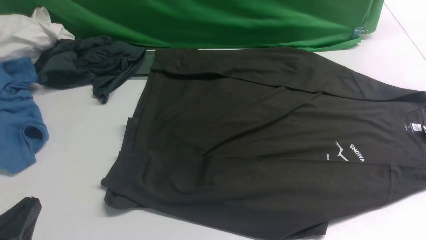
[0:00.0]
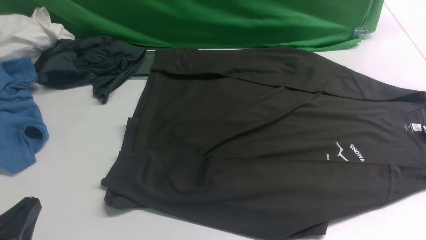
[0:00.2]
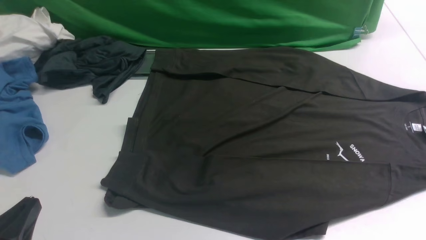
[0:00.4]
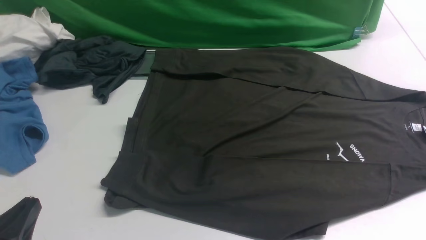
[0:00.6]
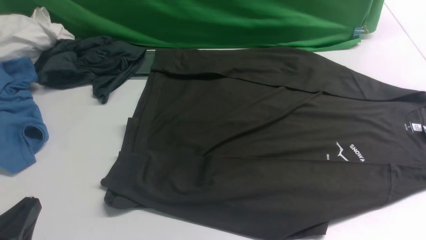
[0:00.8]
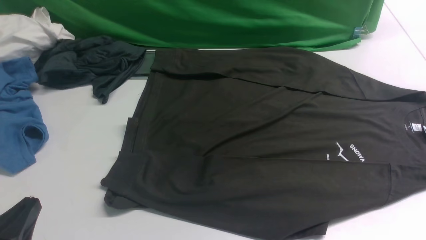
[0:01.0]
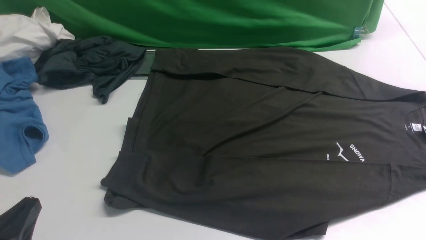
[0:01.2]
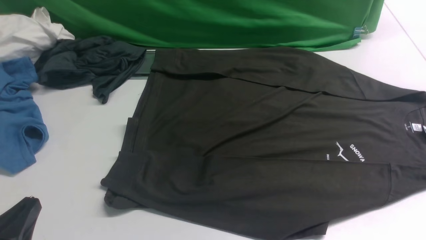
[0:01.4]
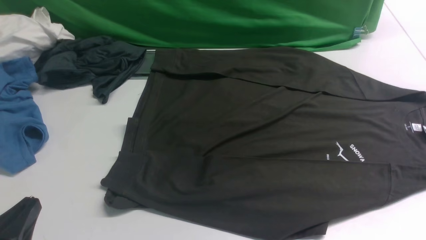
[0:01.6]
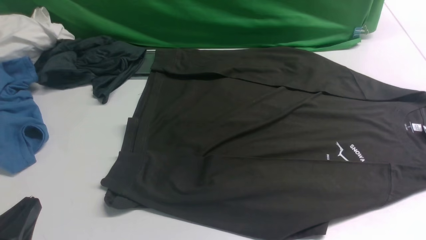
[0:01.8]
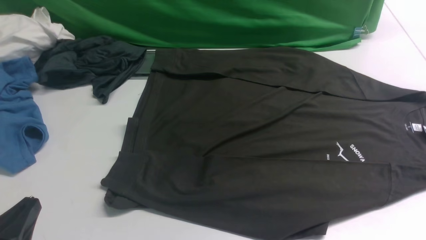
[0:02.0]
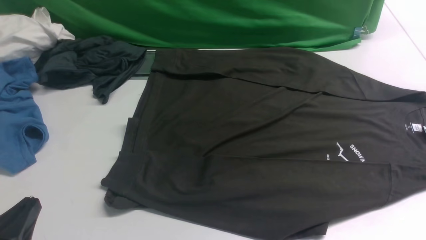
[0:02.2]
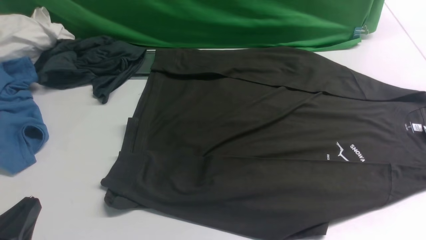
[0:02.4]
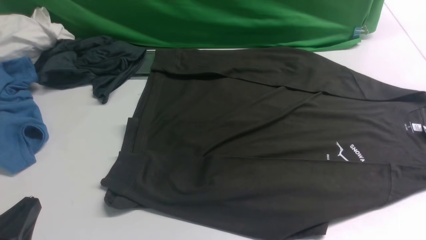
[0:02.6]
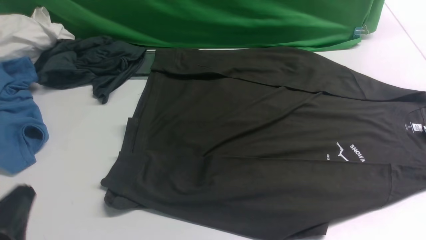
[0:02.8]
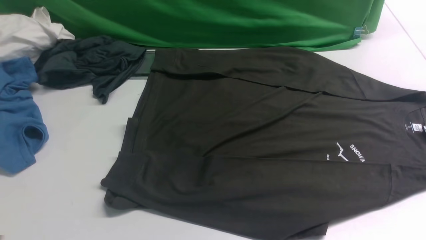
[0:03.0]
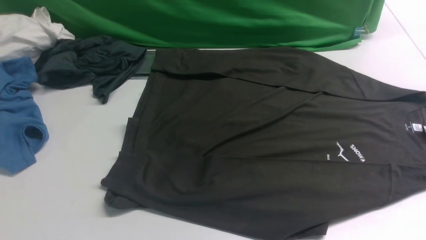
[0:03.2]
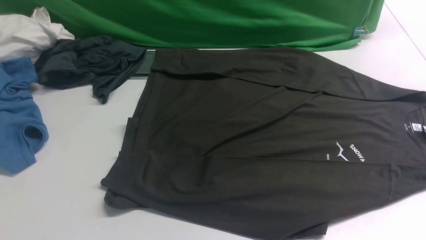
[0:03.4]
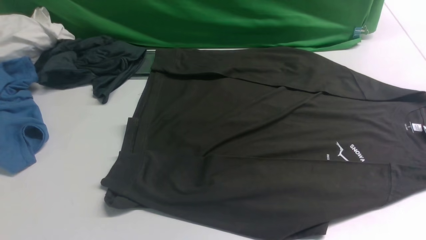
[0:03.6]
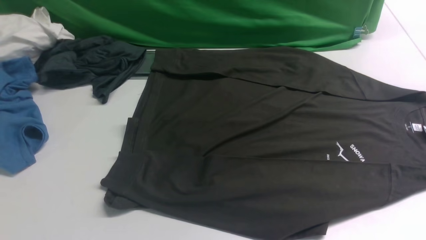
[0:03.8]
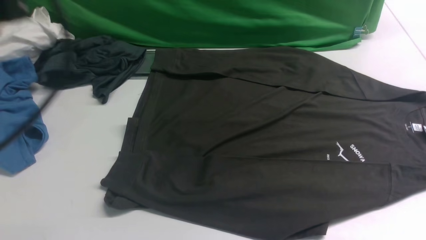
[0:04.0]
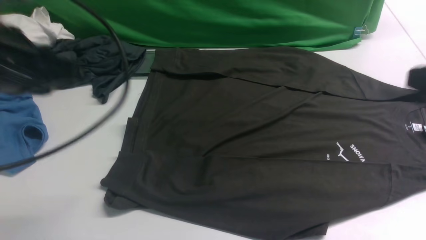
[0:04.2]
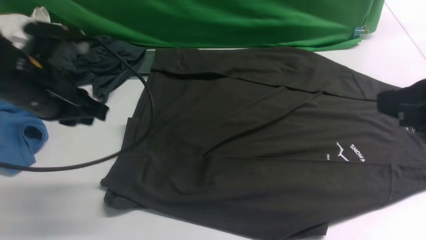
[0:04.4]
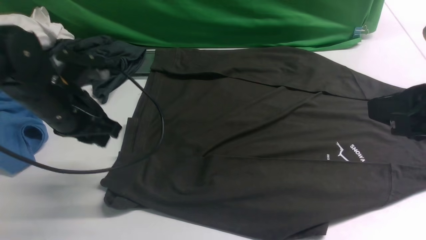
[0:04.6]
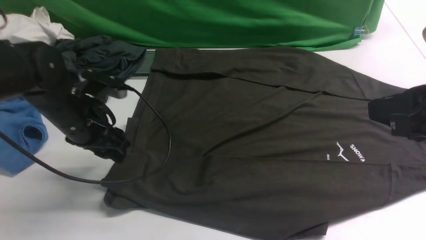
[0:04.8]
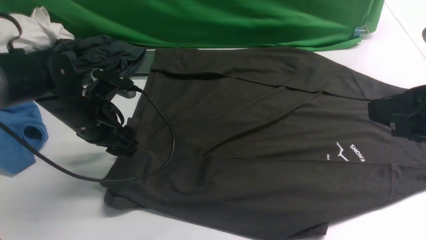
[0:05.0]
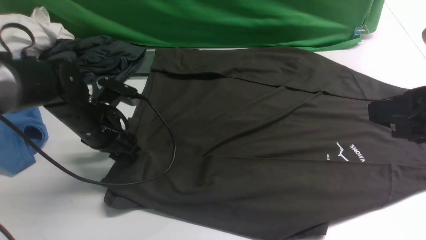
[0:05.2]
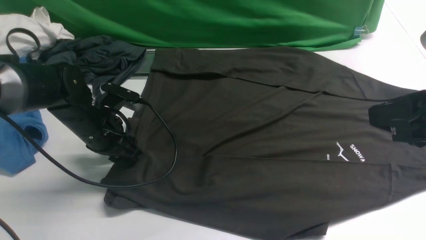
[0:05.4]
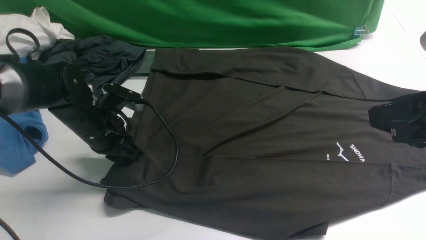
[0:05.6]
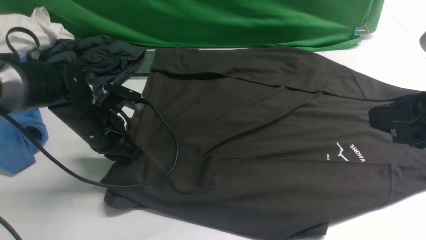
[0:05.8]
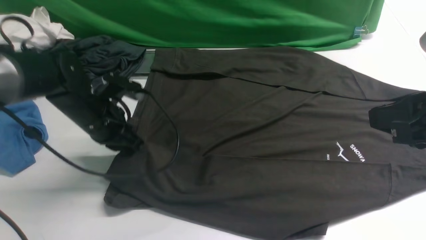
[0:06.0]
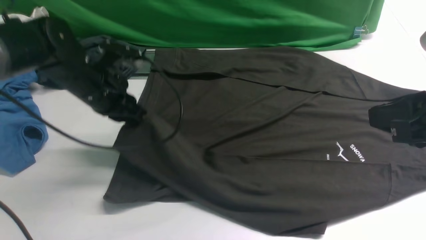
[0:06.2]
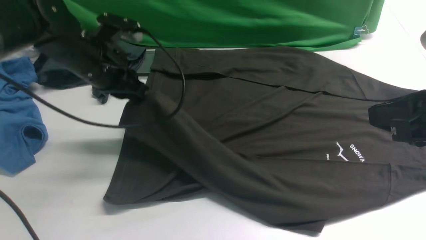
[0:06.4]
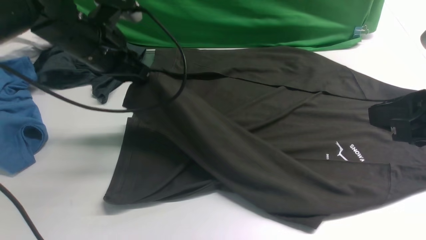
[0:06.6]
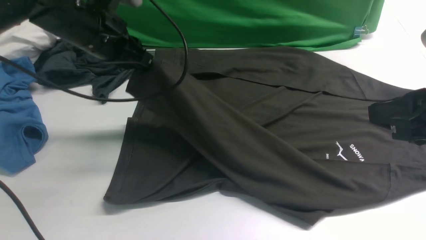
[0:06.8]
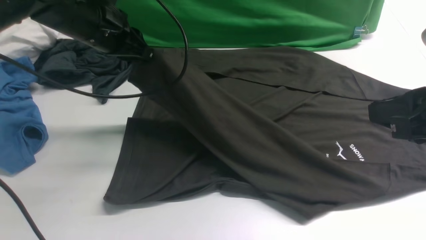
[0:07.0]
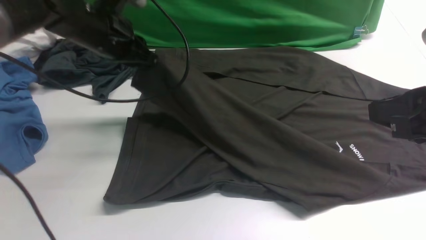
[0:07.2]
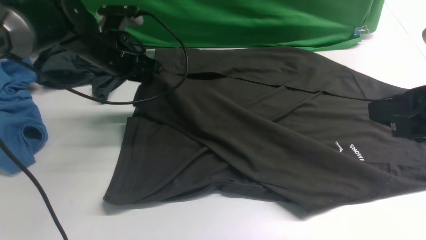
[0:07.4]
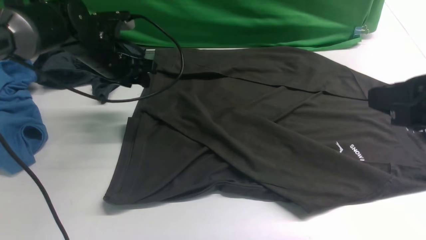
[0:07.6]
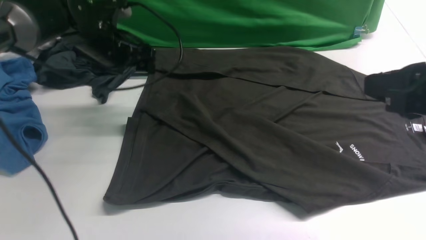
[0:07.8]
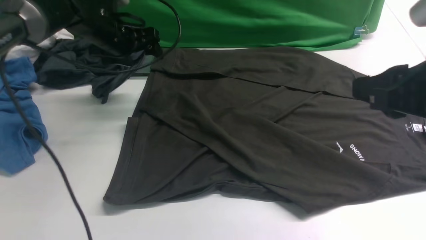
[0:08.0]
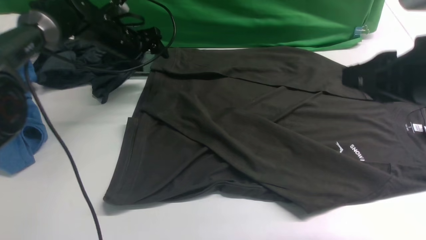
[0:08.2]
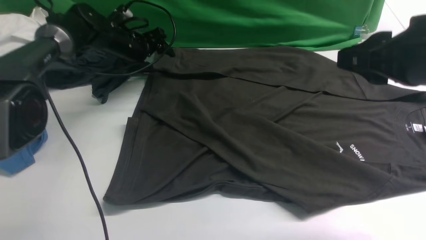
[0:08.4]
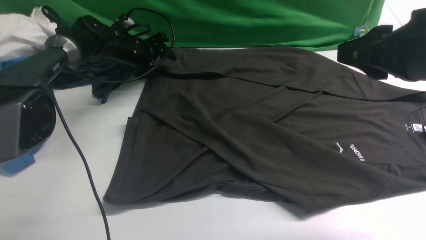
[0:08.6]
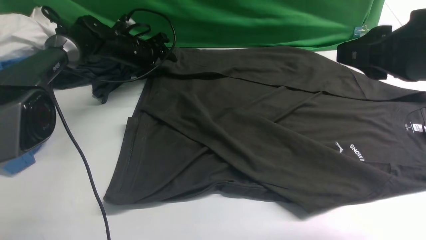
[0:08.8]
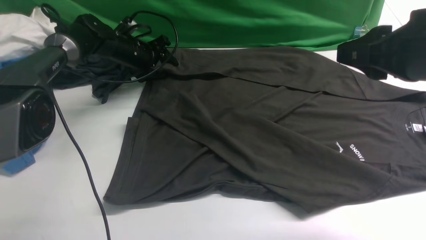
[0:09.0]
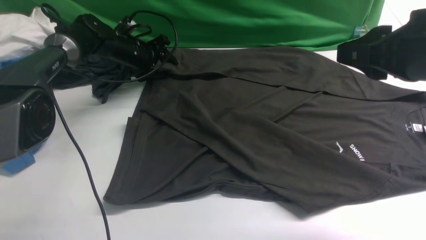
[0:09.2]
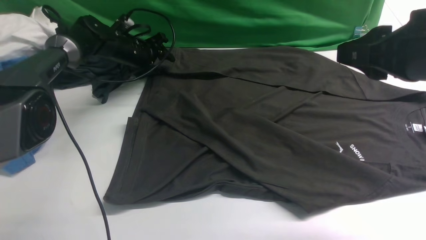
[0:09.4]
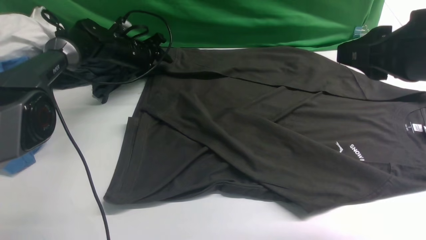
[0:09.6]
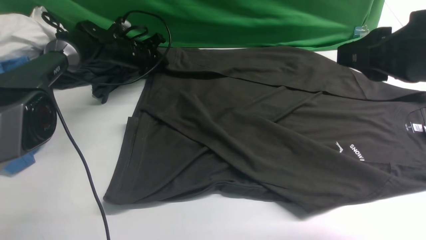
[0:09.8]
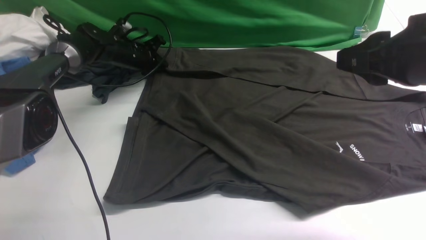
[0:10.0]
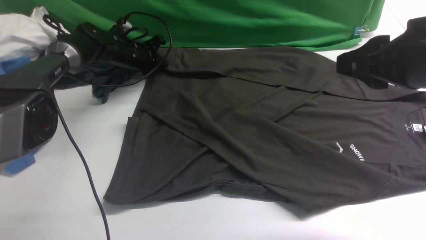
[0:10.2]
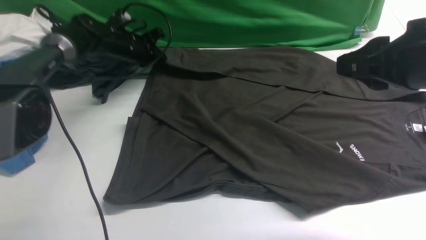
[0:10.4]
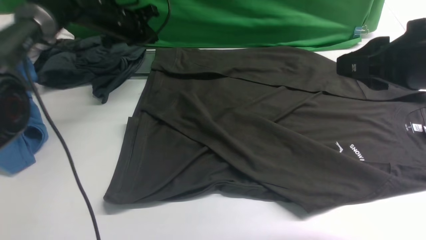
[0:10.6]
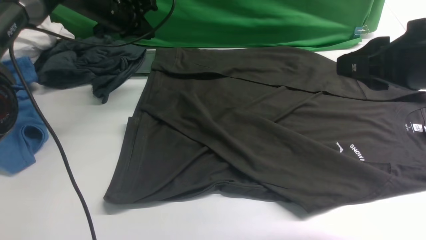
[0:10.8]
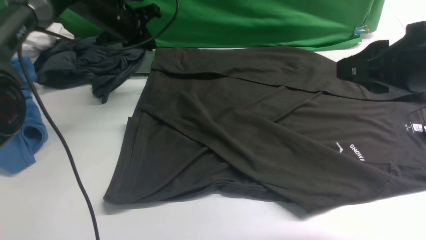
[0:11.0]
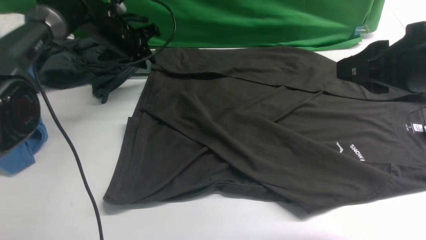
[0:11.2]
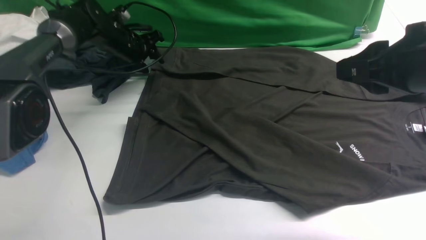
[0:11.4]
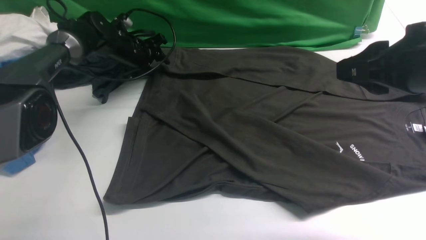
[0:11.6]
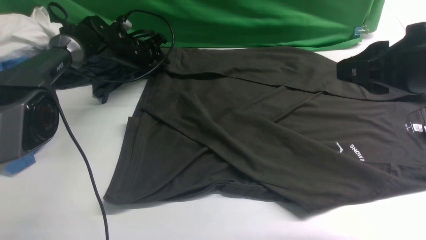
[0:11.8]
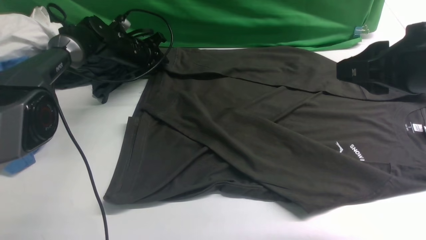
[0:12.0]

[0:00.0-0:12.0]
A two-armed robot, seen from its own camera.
Step, 0:00.0 to 0:06.0: use the left arm to clamp the cuff closest to it.
Step, 0:06.2 to 0:07.8: use the left arm to drag and place the cuff at the centered position on the left edge of the fabric.
0:00.0 to 0:01.6: Neither gripper changes place.
0:01.6 to 0:03.0: The left gripper heads upward, covering some 5 cm.
0:03.0 to 0:04.4: The right gripper goes approximately 15 cm forward, upward and to the left. The left gripper travels forward by roughly 25 cm.
0:04.4 to 0:06.0: The left gripper is displaced downward and forward by roughly 10 cm, and opens and closes again.
0:06.0 to 0:07.6: The left gripper shifts about 10 cm forward, and opens its fingers.
0:07.6 to 0:09.0: The right gripper ends up approximately 5 cm from where it was. Meanwhile the left gripper is displaced forward and downward by roughly 15 cm.
0:09.0 to 0:10.4: The left gripper closes.
0:10.4 to 0:12.0: The left gripper opens its fingers.

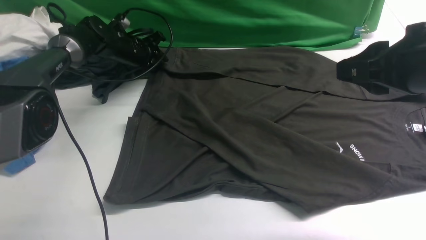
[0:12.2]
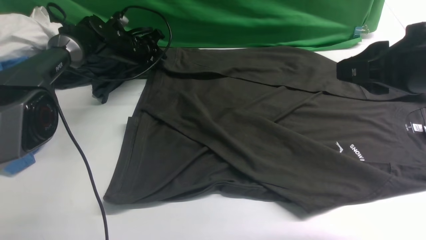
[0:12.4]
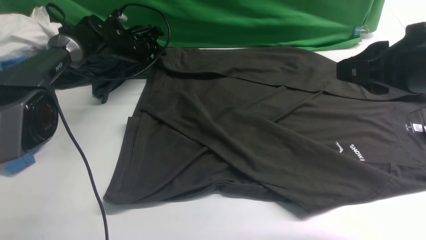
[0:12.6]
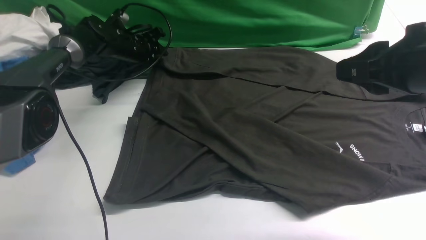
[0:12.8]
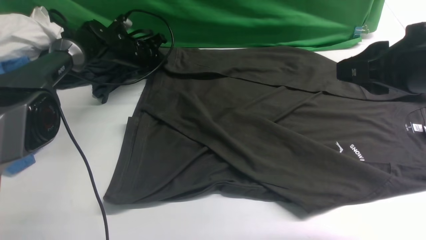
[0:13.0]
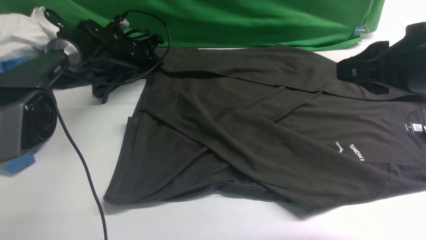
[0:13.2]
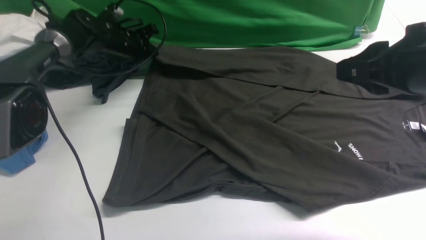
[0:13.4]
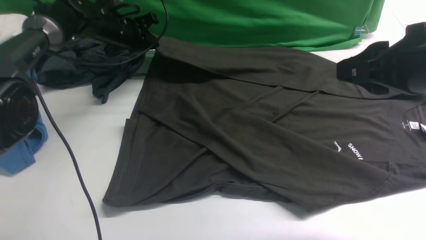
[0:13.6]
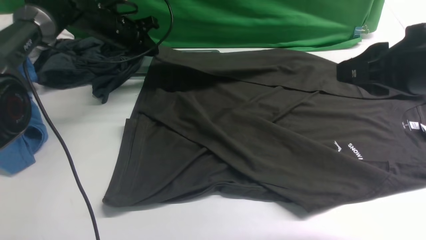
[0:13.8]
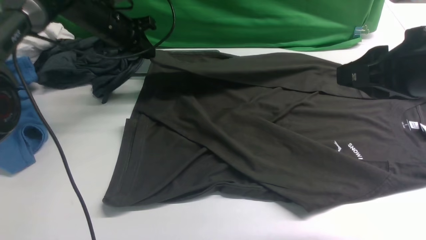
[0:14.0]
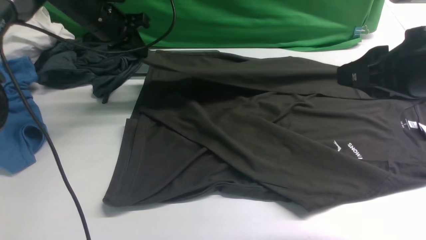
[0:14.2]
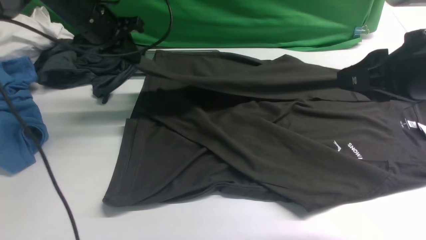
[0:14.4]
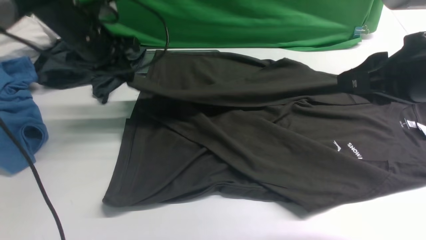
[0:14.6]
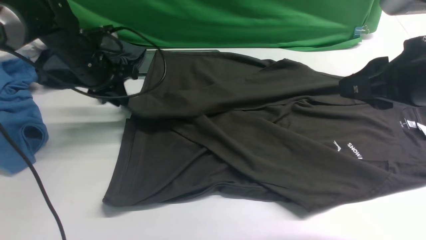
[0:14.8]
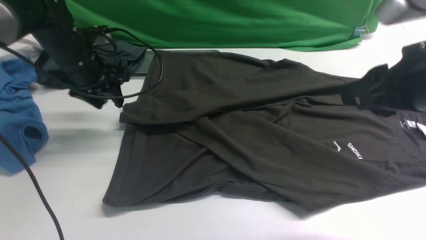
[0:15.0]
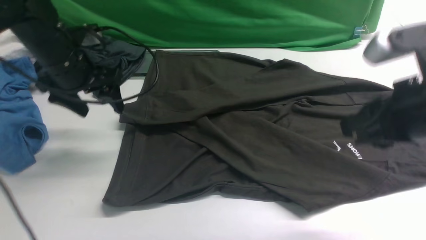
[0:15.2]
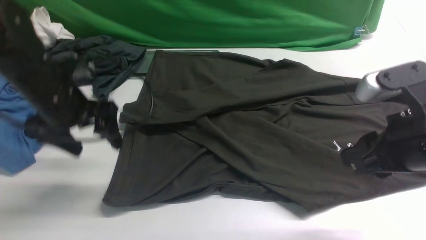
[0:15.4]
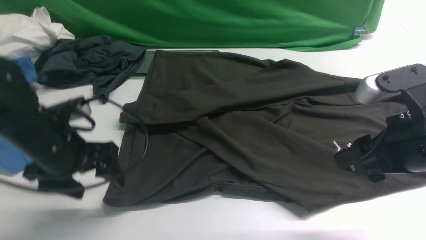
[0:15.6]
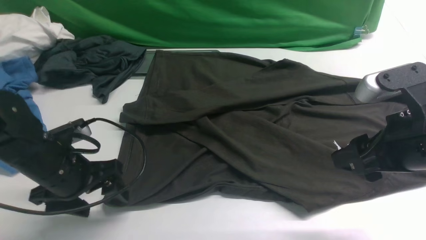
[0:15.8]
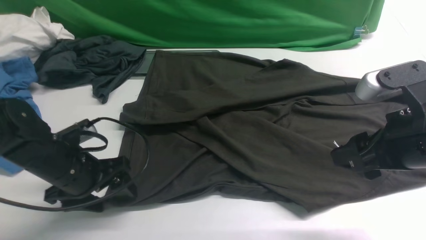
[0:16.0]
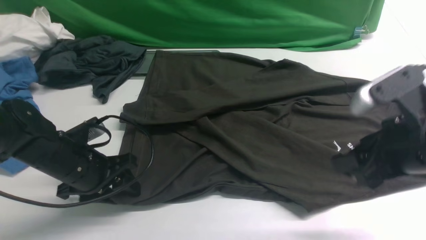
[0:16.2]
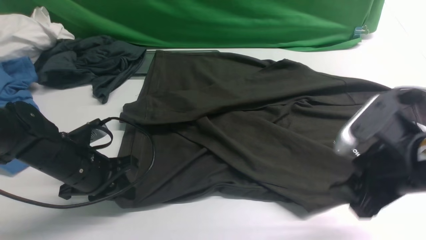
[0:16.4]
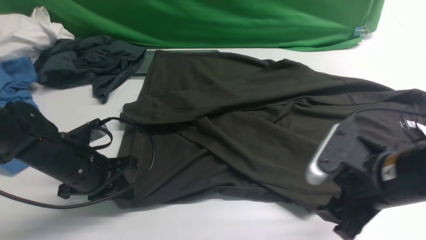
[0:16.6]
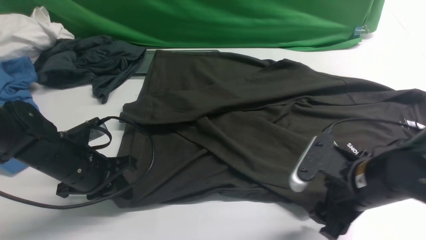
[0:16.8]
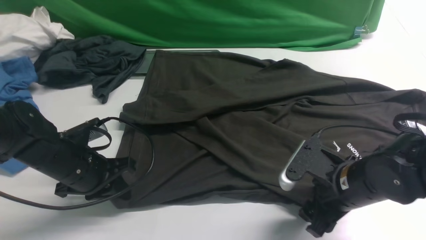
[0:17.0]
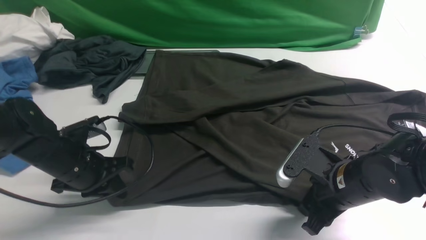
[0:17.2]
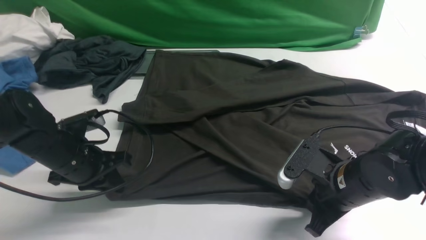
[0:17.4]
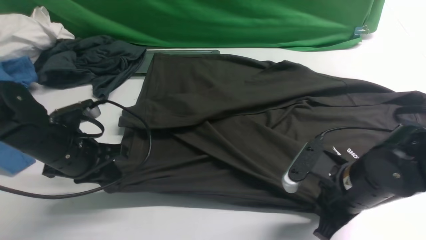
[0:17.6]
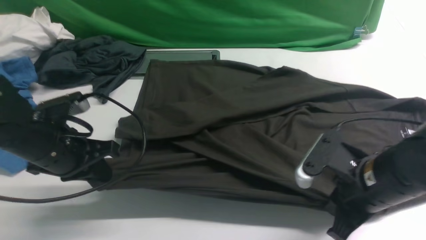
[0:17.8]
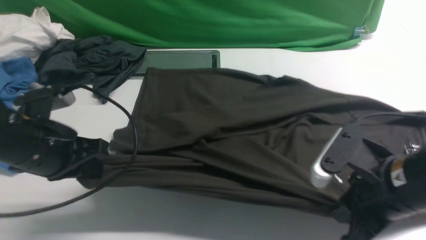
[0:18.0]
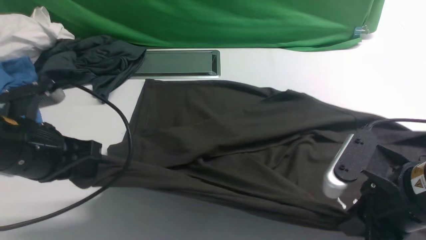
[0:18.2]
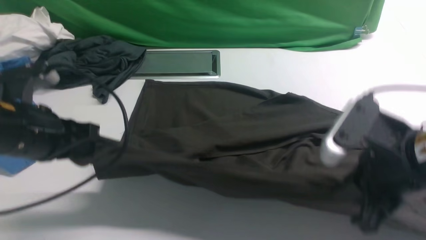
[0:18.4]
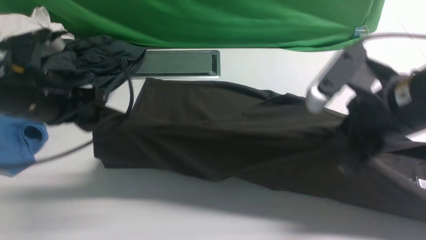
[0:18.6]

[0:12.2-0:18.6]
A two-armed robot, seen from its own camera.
Step, 0:13.8 to 0:15.0: use the left arm to drag and drop the cuff onto the cuff closest to the left arm.
Step, 0:15.2 to 0:17.6: use both arms simultaneously to clamp the lower edge of the clothing fabric.
0:12.2 to 0:13.8: The left gripper shifts approximately 10 cm upward, and closes.
0:13.8 to 0:15.4: The left gripper goes some 20 cm backward, and opens its fingers. The right gripper shifts about 5 cm downward.
0:15.4 to 0:17.0: The right gripper heads downward, covering approximately 15 cm; the left gripper travels downward by about 10 cm, and closes.
0:17.0 to 0:18.6: The two grippers go some 15 cm upward. The right gripper closes its fingers.
